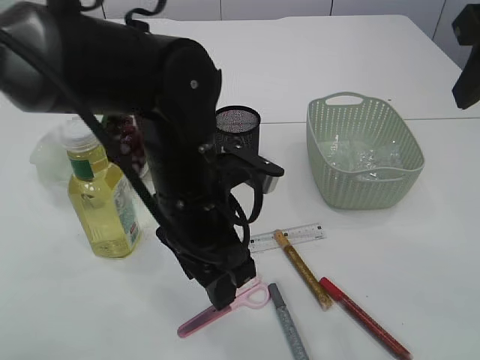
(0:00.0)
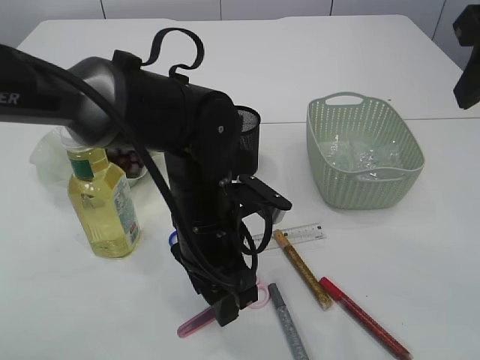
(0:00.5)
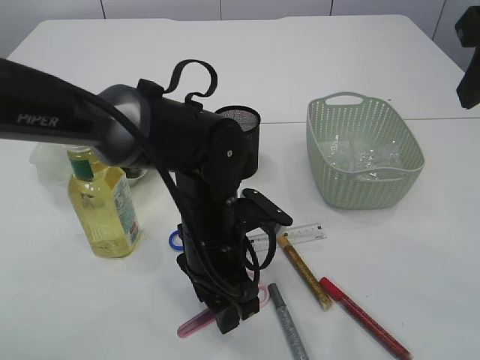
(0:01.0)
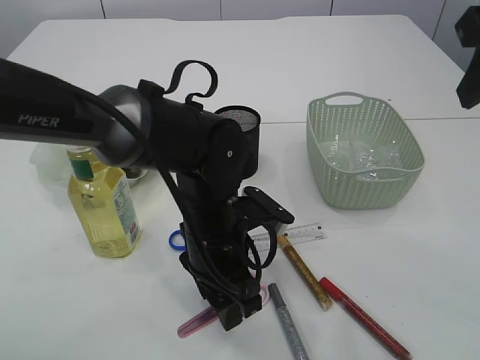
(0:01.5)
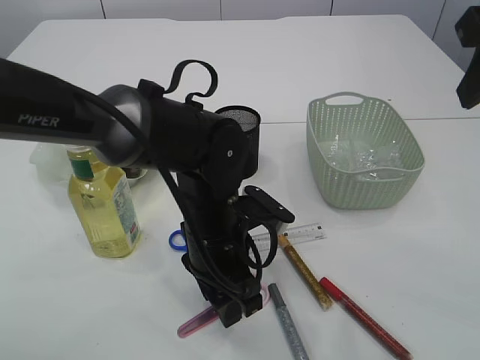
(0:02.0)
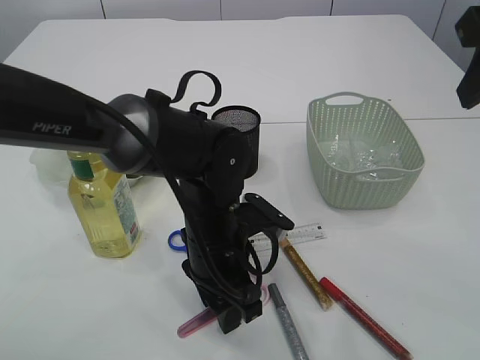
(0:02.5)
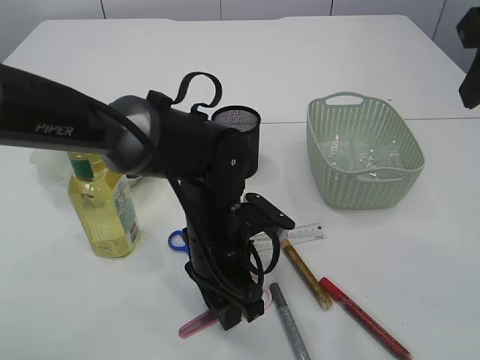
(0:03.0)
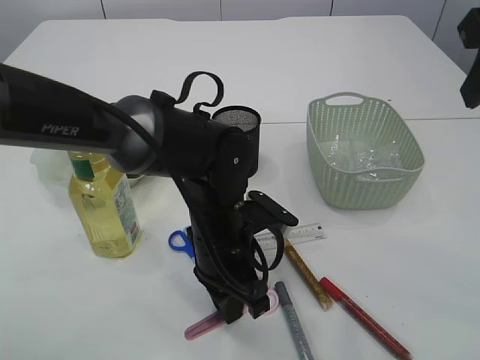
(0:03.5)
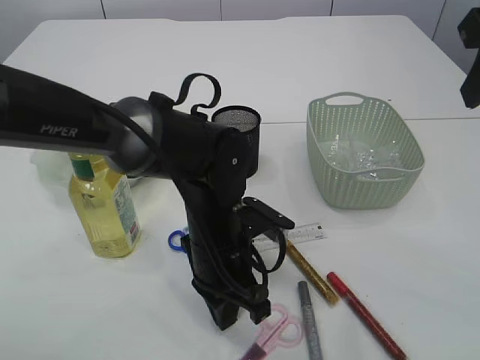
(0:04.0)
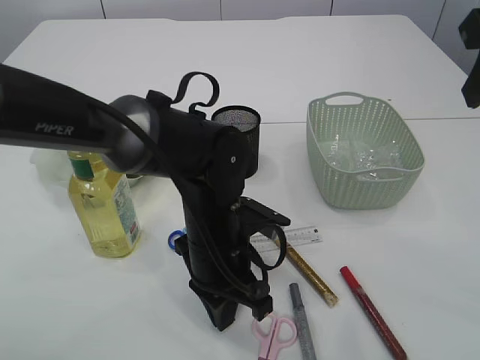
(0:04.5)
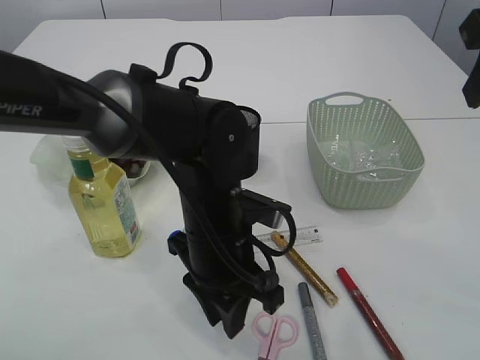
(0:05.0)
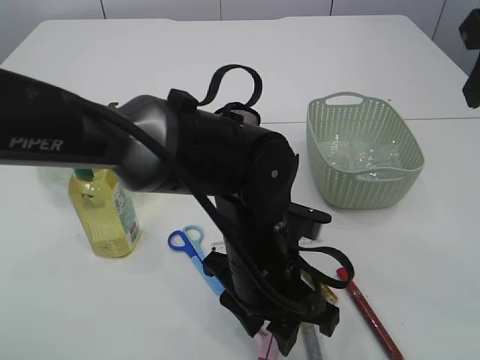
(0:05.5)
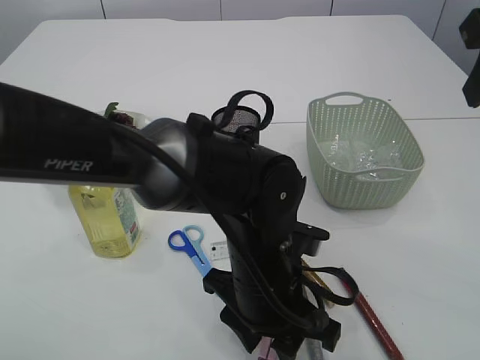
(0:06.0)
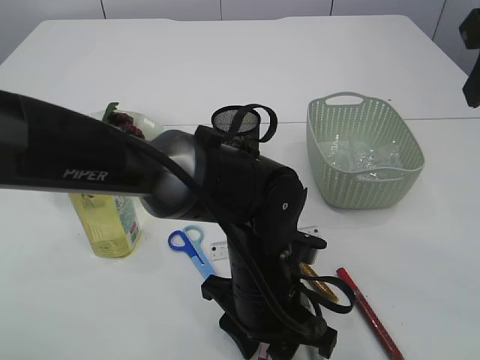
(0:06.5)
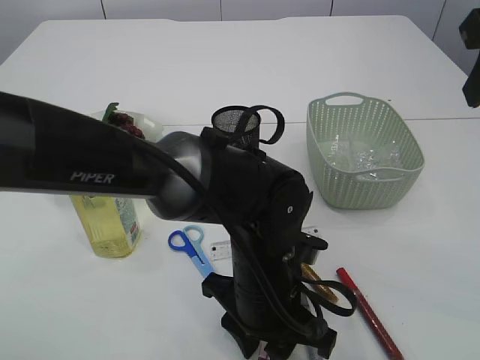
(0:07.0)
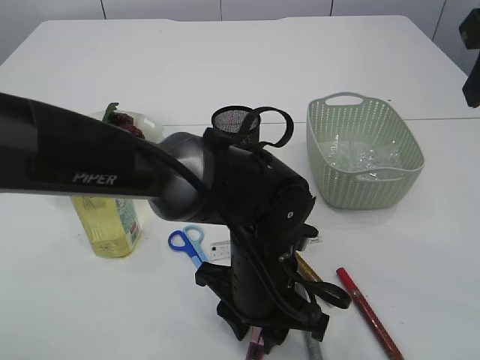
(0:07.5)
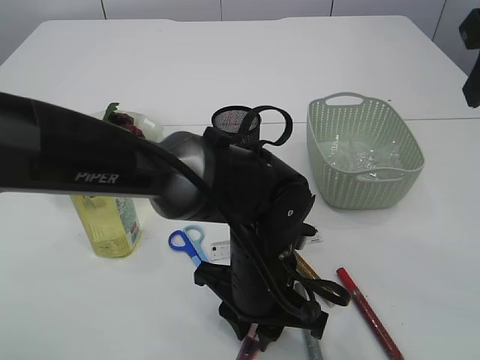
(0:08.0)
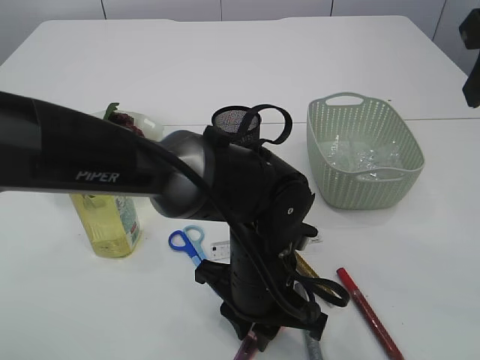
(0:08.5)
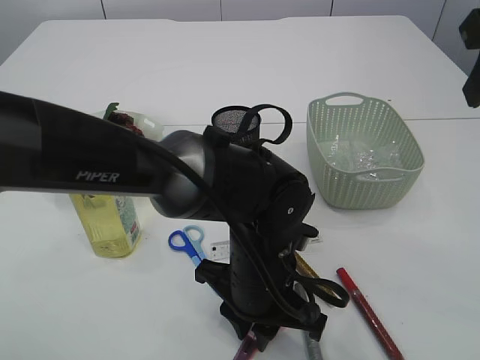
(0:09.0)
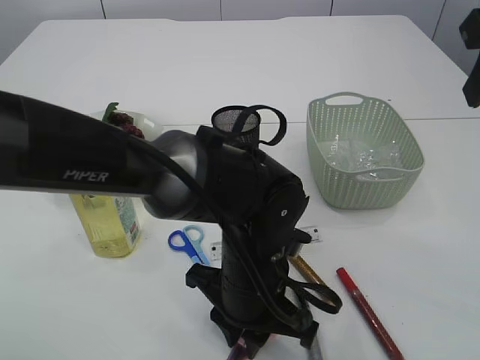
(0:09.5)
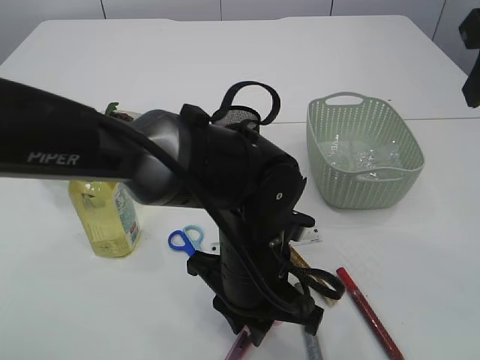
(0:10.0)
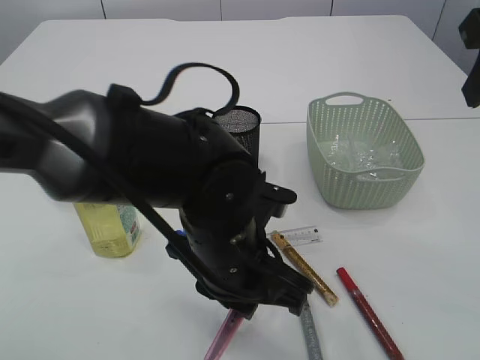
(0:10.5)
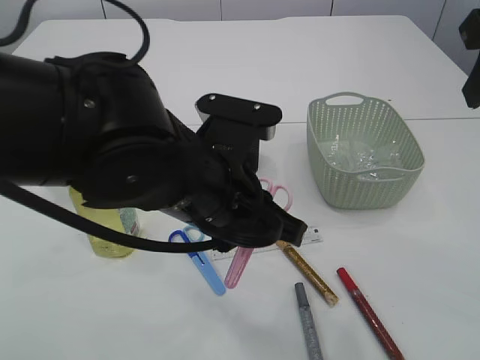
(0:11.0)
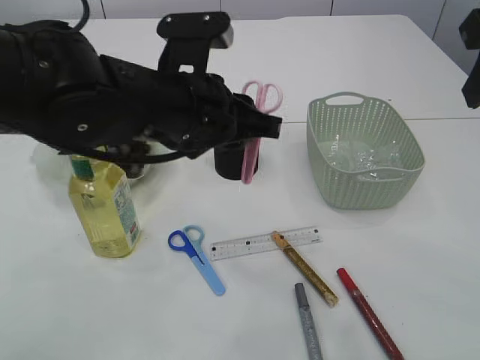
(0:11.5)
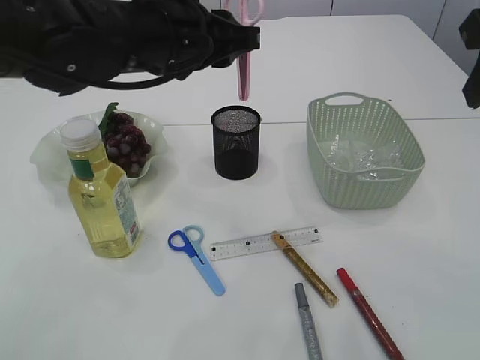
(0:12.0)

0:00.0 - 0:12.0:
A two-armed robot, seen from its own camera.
Step, 0:00.0 - 0:11.0: pick up the pink scissors.
0:00.0 - 0:02.0: The left gripper travels downward by approximately 10 cm.
0:02.0 - 0:04.0: The left gripper closes.
0:04.0 - 0:06.0: The left gripper changes place by approximately 5 cm, and opens its fingers.
0:06.0 - 0:10.0: The grippers move only a little.
0:10.0 - 0:12.0: The left gripper goes approximately 20 cm upward, forward and to the left.

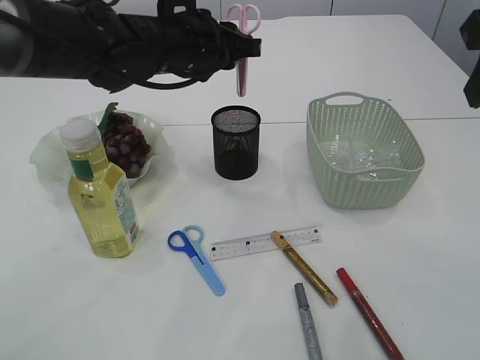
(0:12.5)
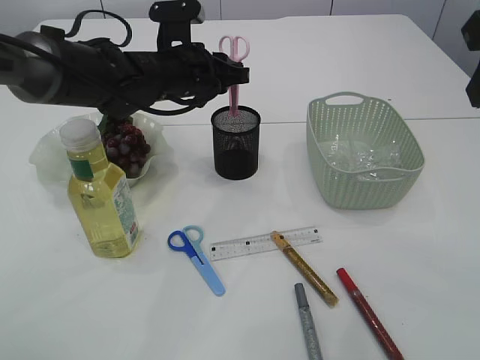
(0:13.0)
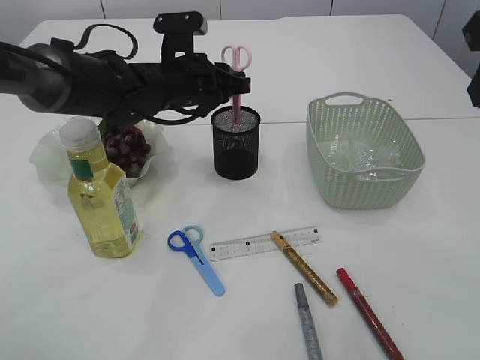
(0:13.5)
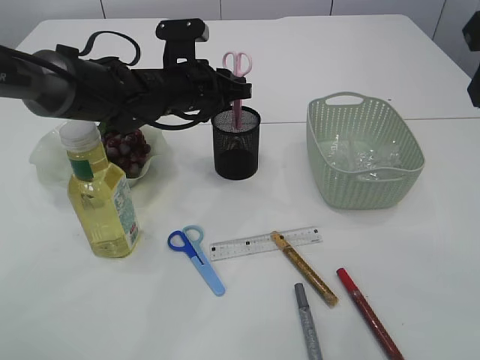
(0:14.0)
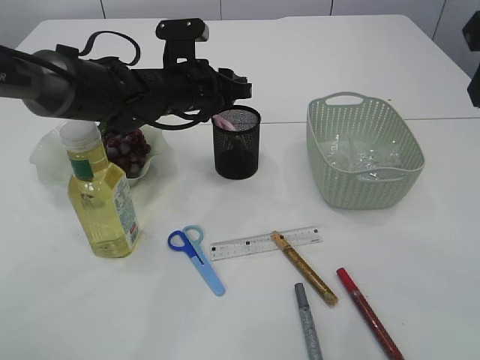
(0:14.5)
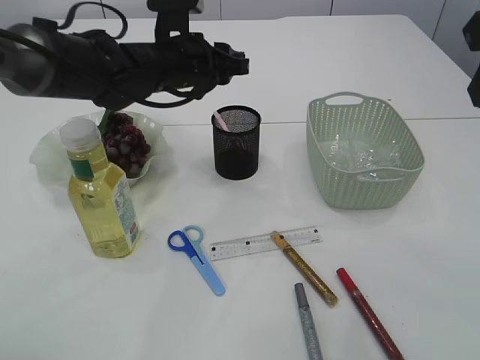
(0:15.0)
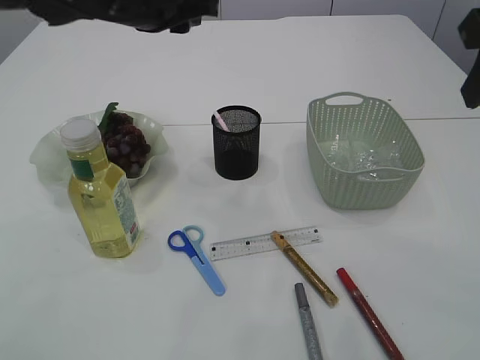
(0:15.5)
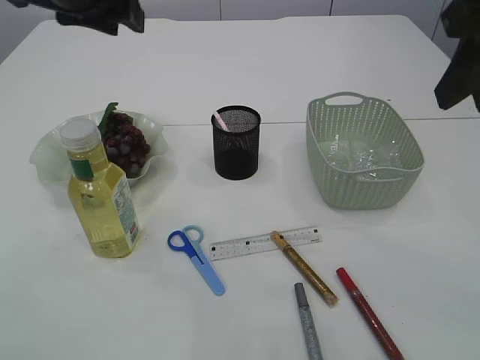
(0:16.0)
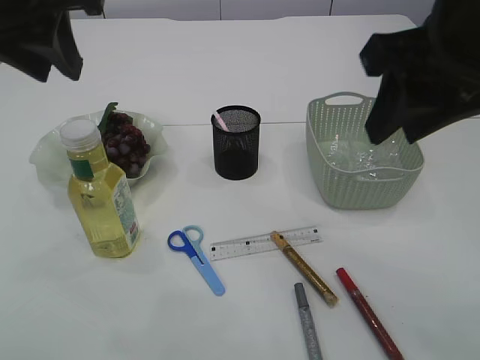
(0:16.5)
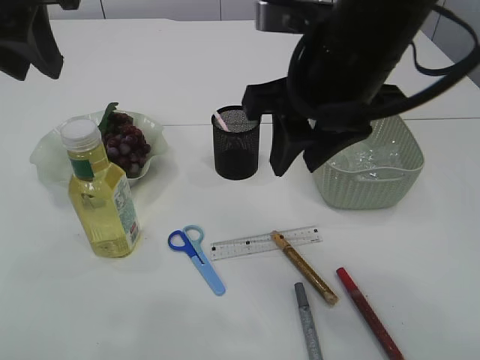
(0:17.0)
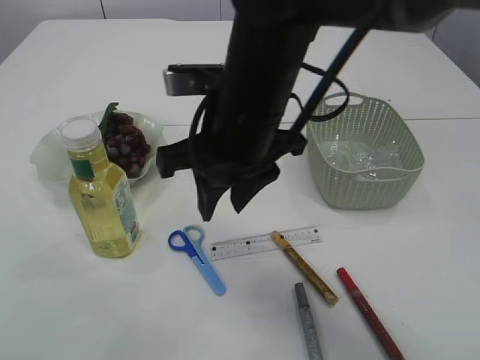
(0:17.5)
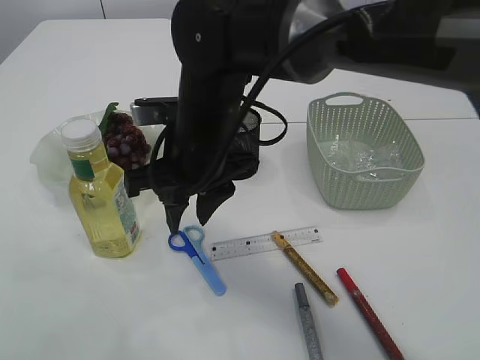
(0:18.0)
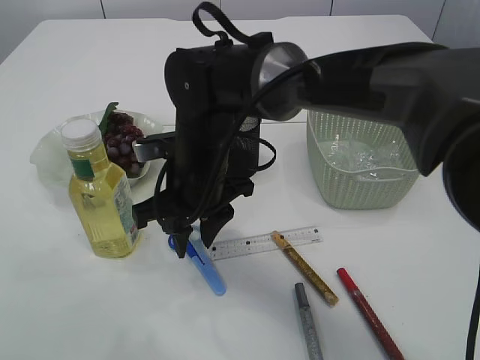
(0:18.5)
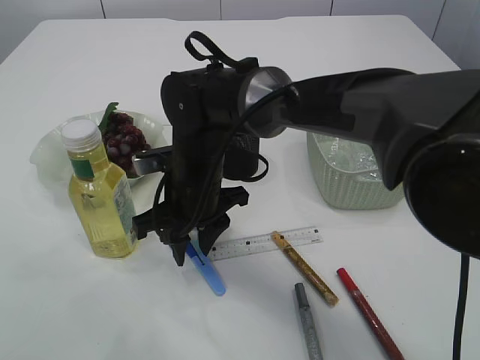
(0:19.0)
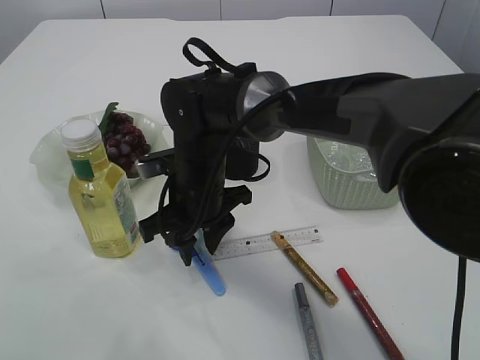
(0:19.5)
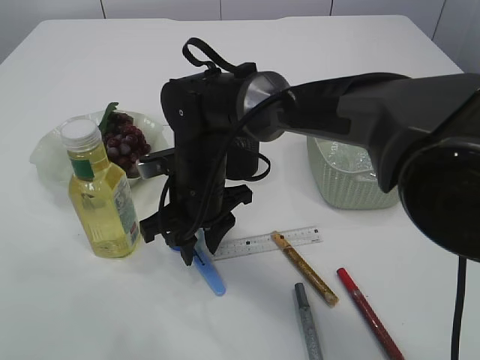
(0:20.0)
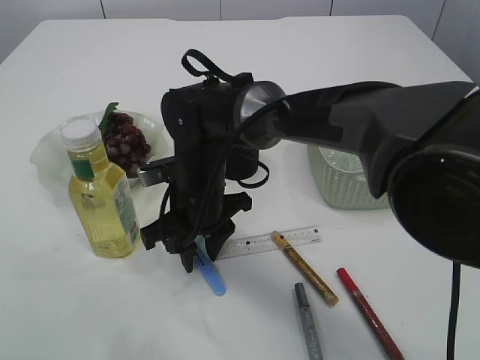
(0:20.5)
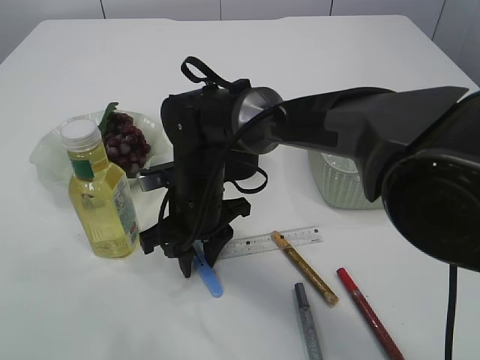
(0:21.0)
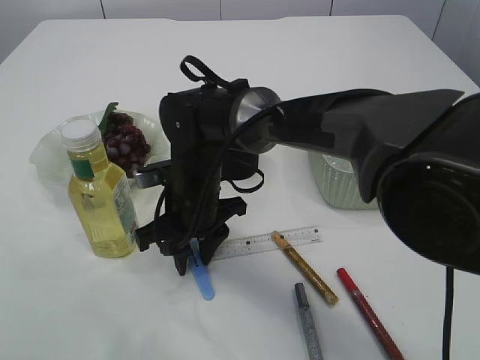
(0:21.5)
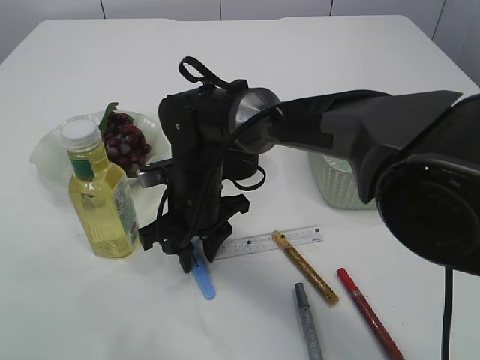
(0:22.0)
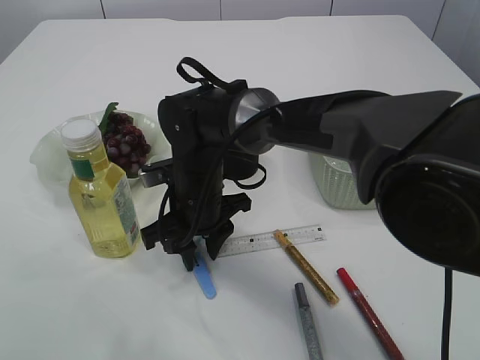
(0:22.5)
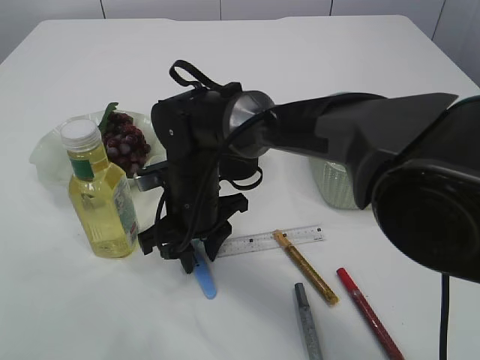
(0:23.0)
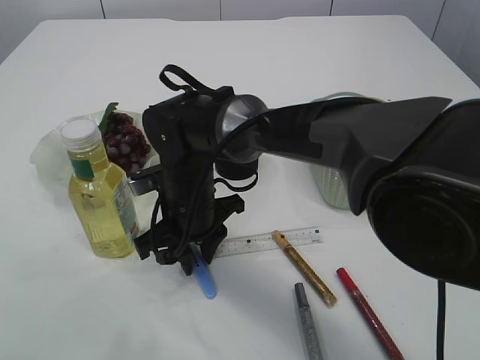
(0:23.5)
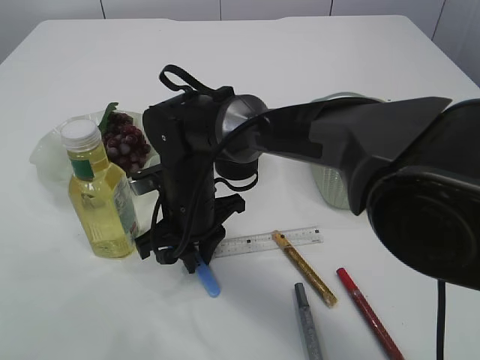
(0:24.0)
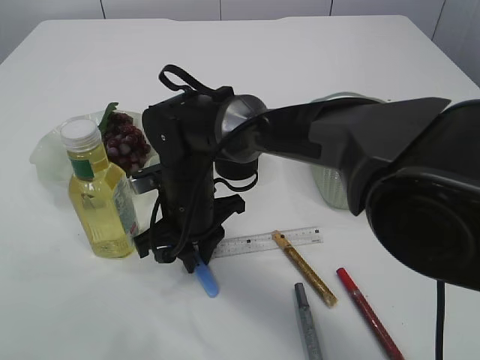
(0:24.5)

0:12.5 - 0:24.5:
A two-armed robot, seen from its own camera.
Step, 0:12.5 - 0:15.0: Place the pink scissors into the pen holder.
0:12.5 - 0:14.5: The left gripper heads downward, covering about 5 cm.
0:14.5 - 0:16.5: The left gripper travels upward, backward and to the left by approximately 30 cm; the right gripper moves to the left, about 5 cm.
0:16.5 - 0:18.5: The right gripper is displaced to the left, downward and forward by approximately 30 cm. The left gripper heads to the left and upward, covering about 10 cm.
0:20.5 - 0:22.5: Neither gripper changes place.
0:22.5 - 0:24.5: Both grippers stay about where they are.

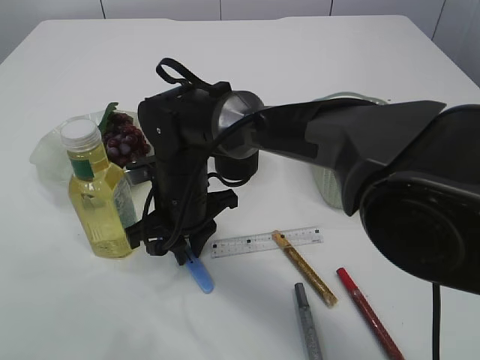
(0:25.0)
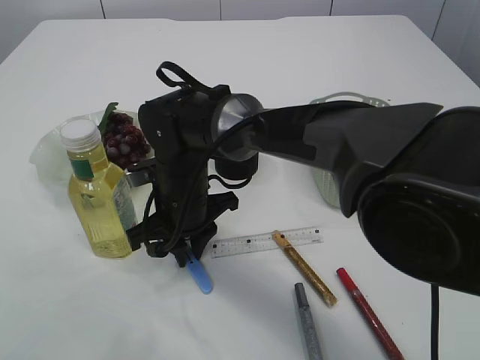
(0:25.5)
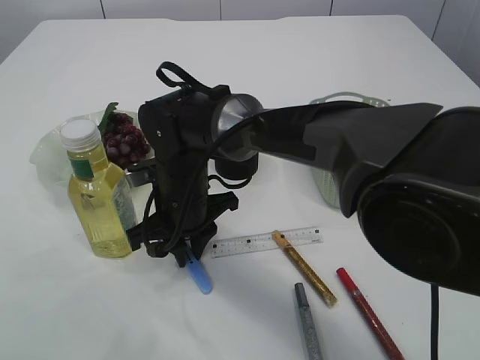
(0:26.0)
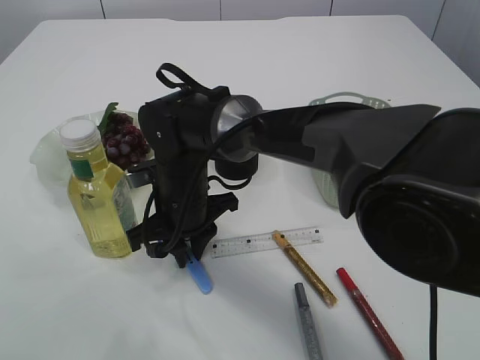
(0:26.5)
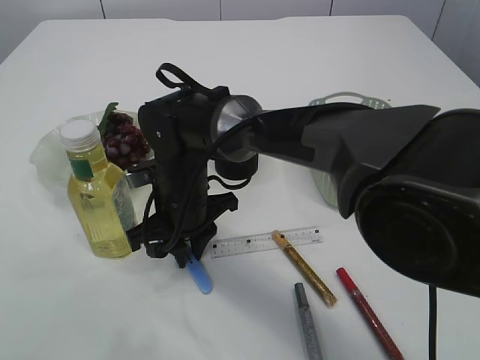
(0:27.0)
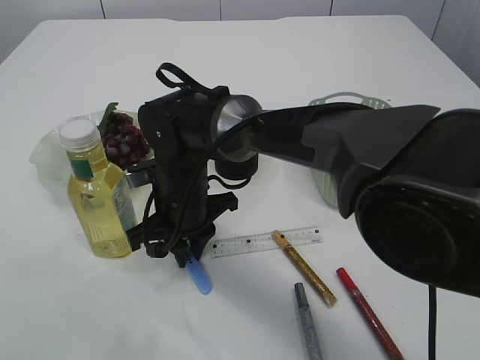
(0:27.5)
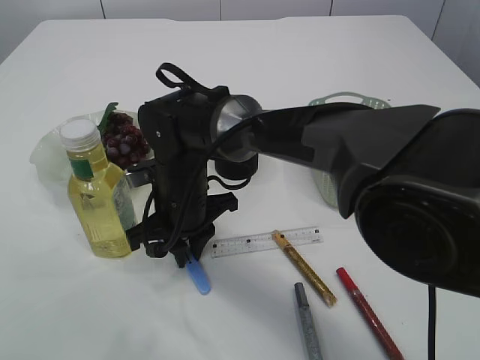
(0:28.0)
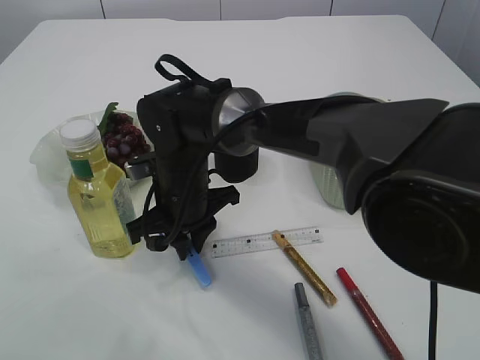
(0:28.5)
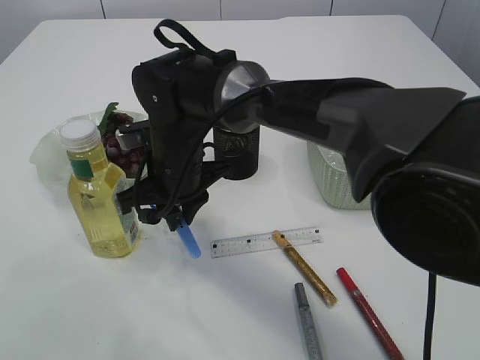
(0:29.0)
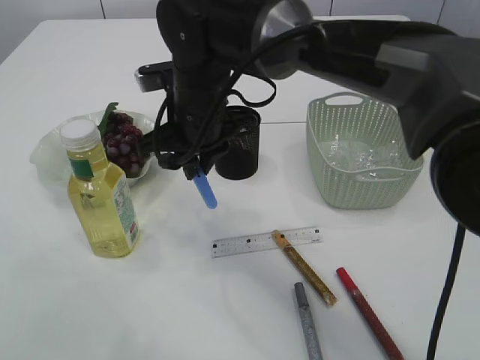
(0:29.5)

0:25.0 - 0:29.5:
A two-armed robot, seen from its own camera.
Step, 0:25.0 - 0:29.0: pick up the blue scissors.
0:25.0 - 0:27.0: The two grippers keep their place.
0:27.0 - 0:29.5: The right gripper travels upward by roughly 10 cm.
